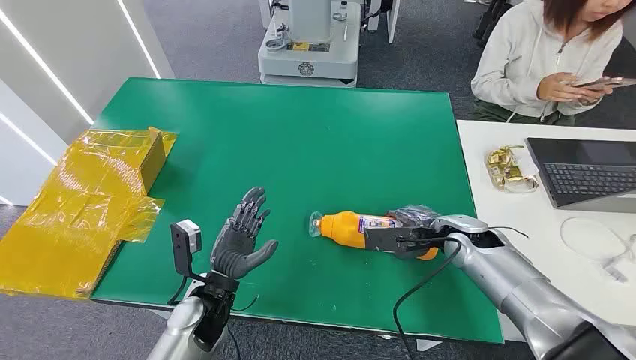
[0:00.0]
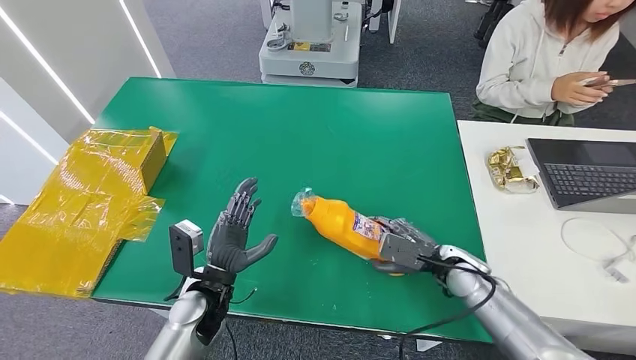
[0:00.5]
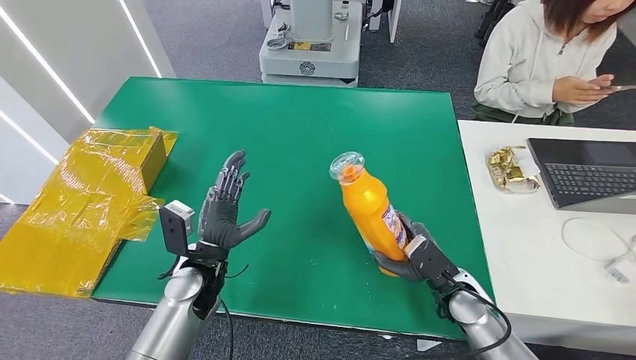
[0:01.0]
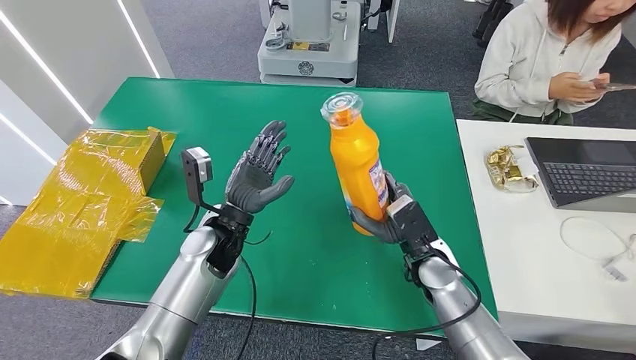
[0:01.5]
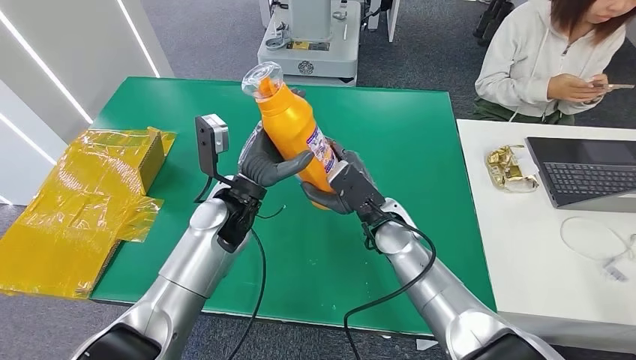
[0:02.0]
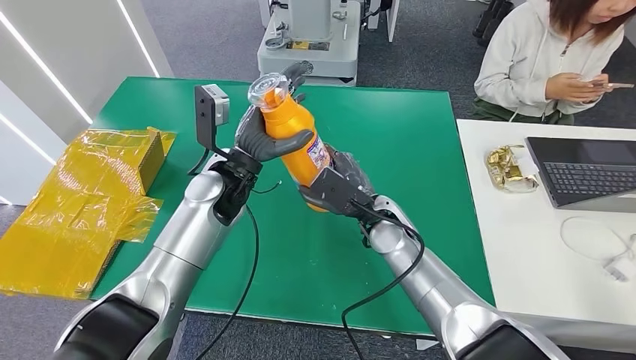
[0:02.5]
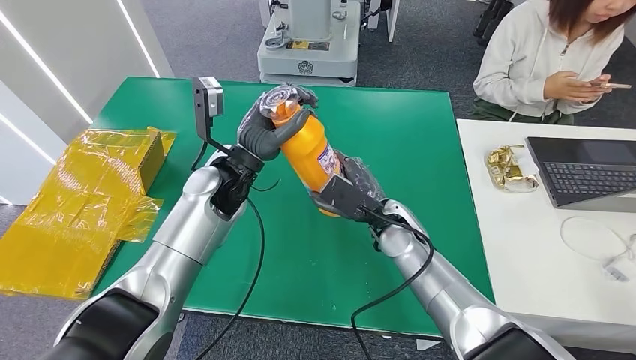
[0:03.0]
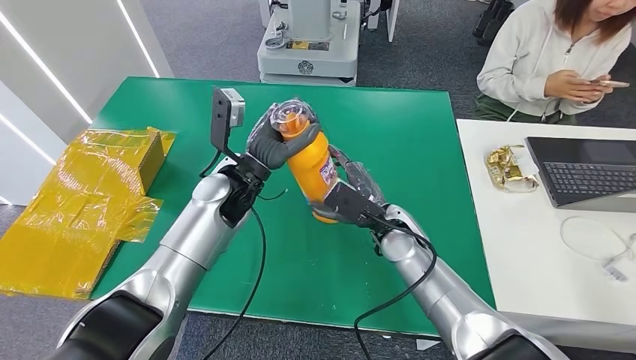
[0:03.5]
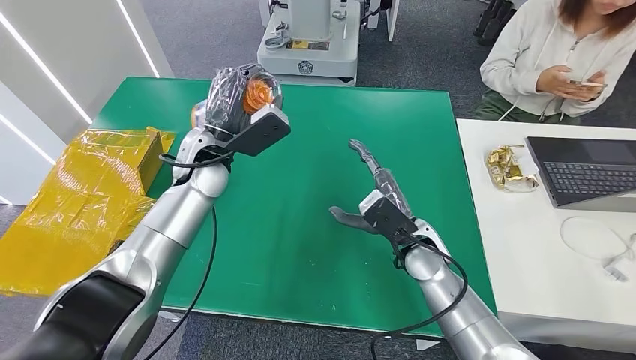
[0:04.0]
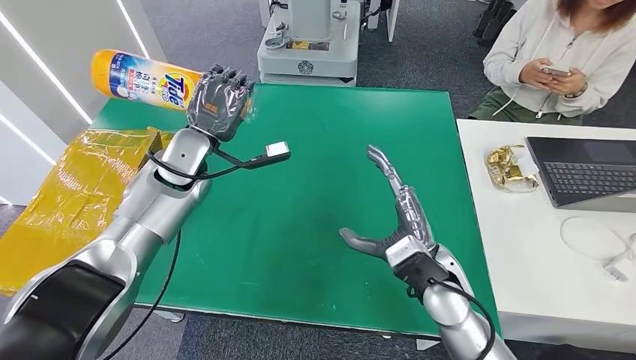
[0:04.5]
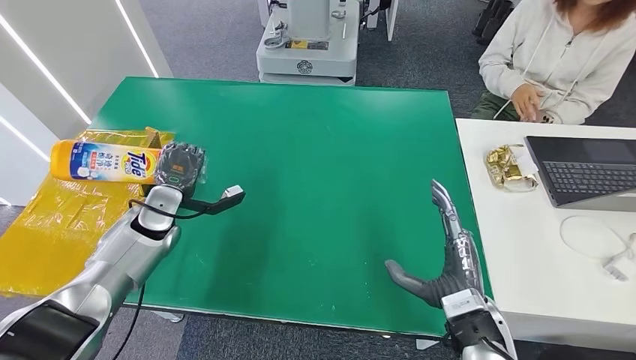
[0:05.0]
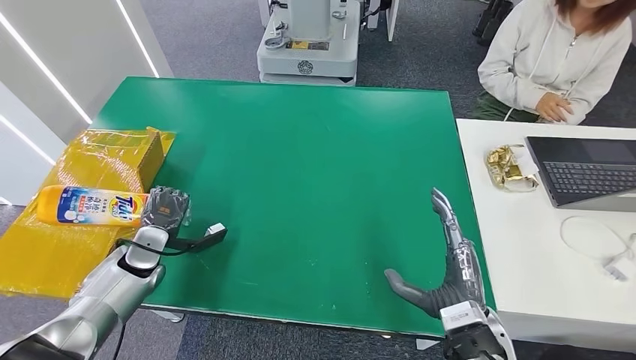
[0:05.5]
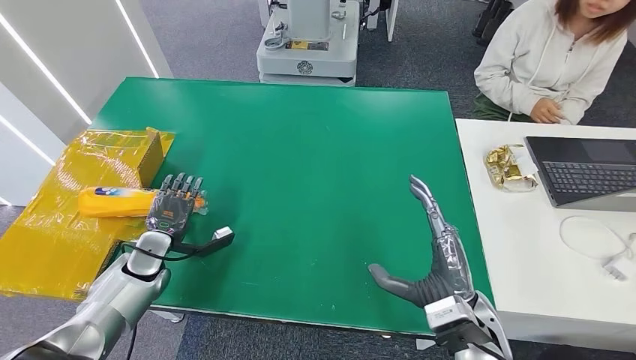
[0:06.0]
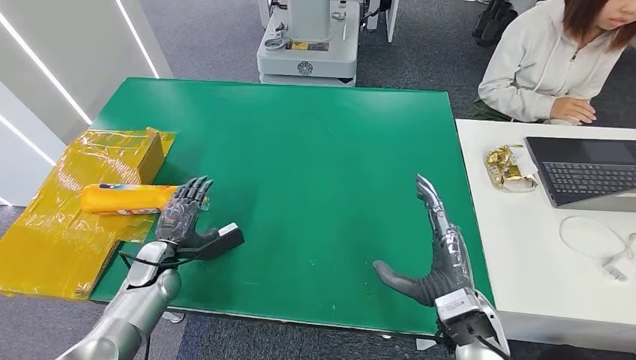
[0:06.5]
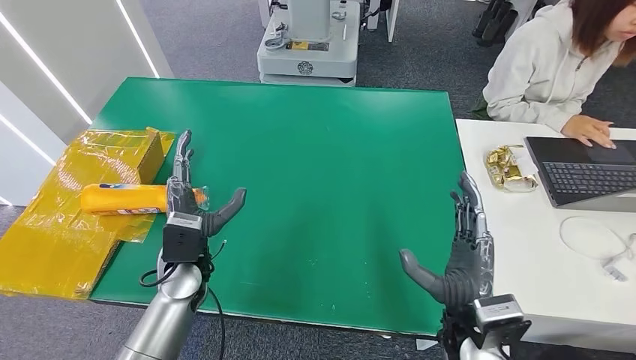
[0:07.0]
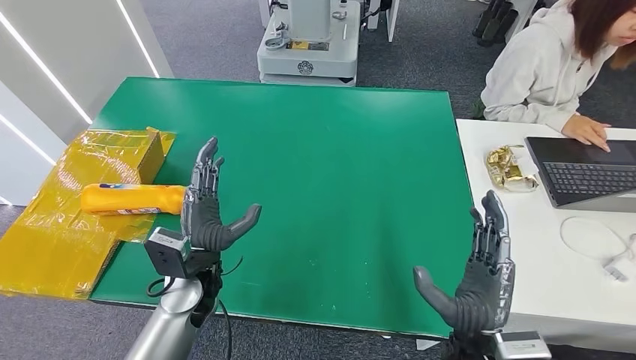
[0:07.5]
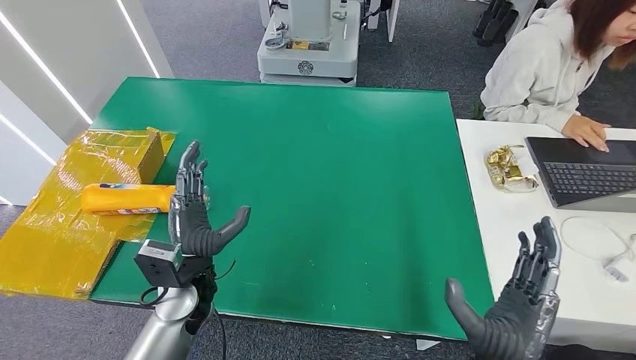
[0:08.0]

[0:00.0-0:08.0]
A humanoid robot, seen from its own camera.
Step, 0:00.0 to 0:02.0: Pick up the bottle from the table.
Step, 0:02.5 to 0:07.5: Turn the bottle to the front side.
0:06.0 to 0:08.0: The left hand is displaced to the right, upward and backward by about 20 cm. The right hand shifts approximately 5 cm backward.
